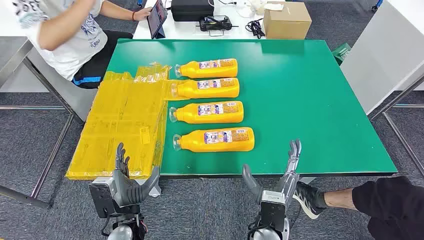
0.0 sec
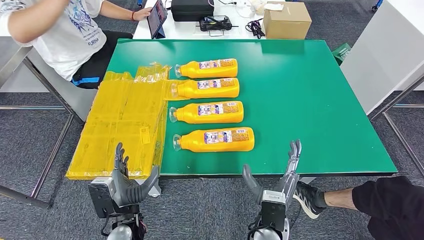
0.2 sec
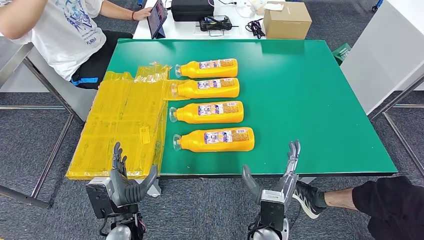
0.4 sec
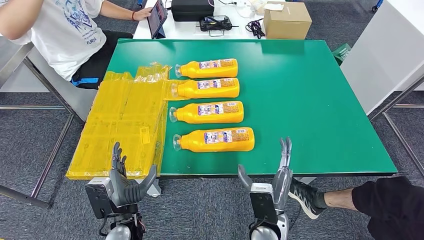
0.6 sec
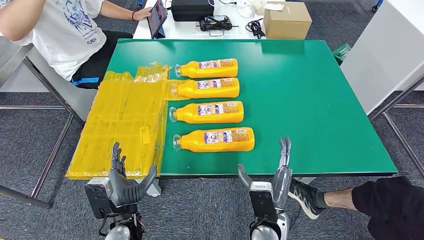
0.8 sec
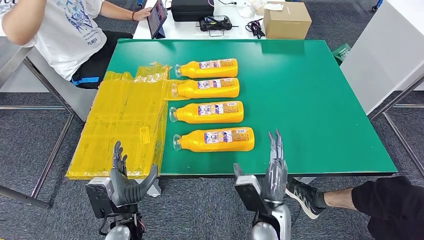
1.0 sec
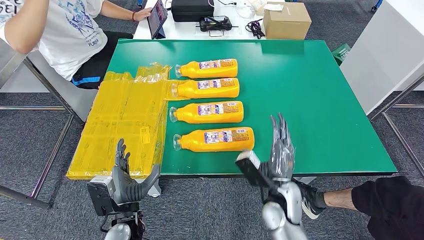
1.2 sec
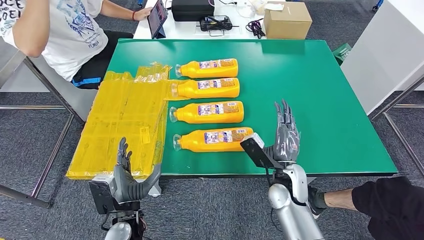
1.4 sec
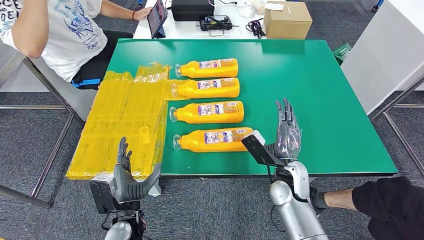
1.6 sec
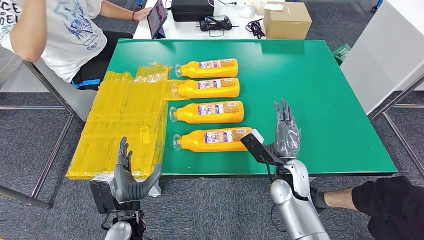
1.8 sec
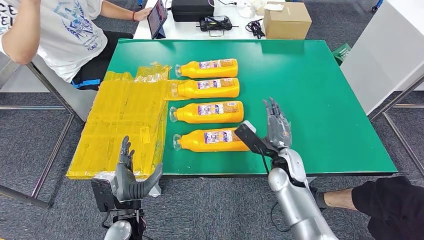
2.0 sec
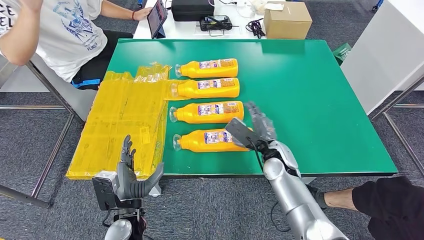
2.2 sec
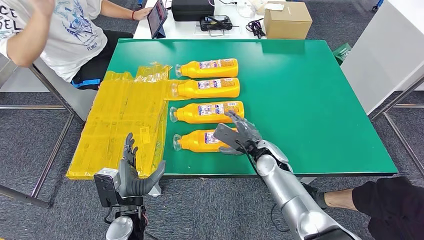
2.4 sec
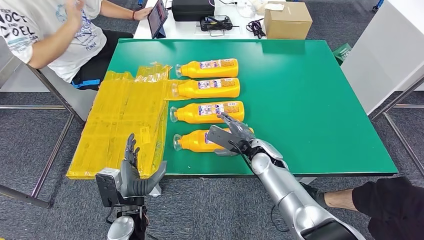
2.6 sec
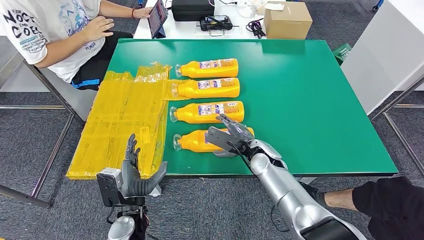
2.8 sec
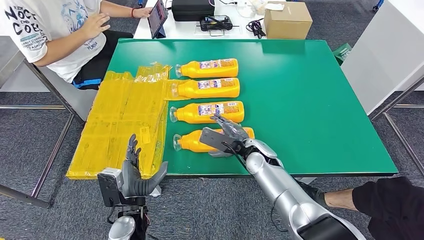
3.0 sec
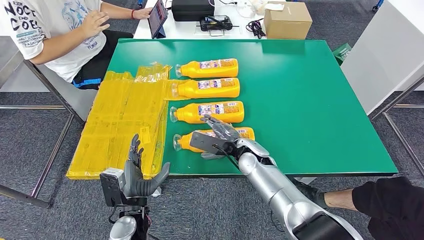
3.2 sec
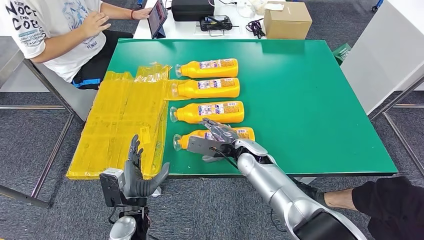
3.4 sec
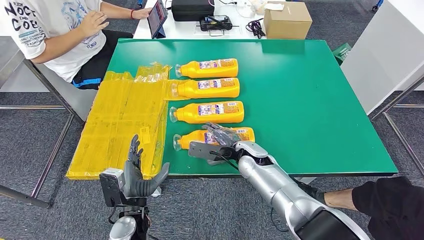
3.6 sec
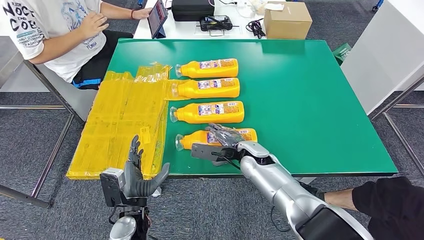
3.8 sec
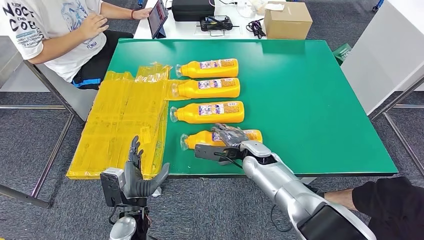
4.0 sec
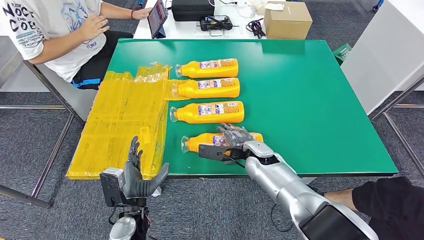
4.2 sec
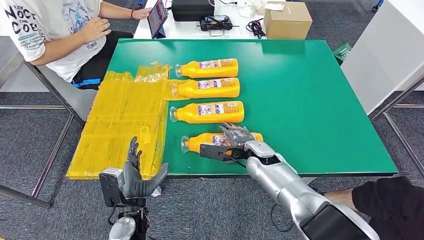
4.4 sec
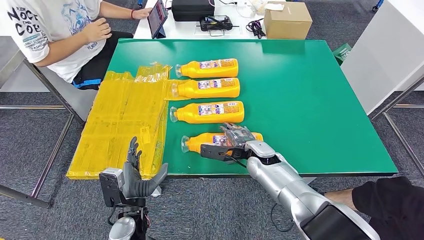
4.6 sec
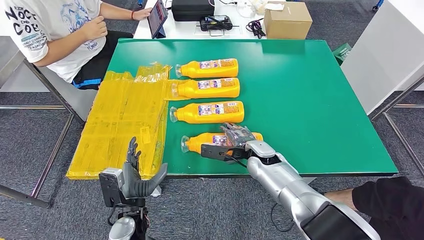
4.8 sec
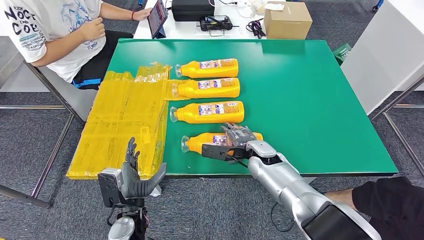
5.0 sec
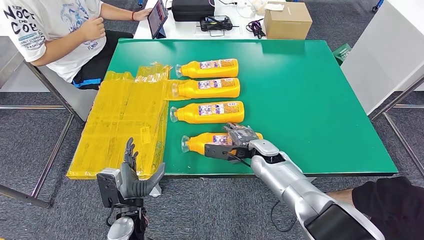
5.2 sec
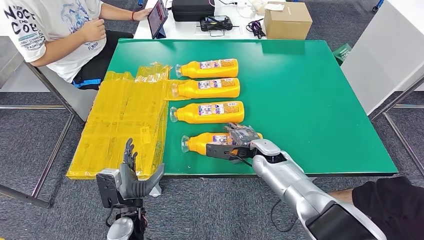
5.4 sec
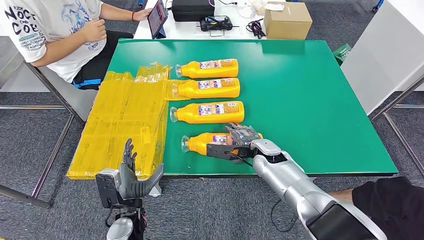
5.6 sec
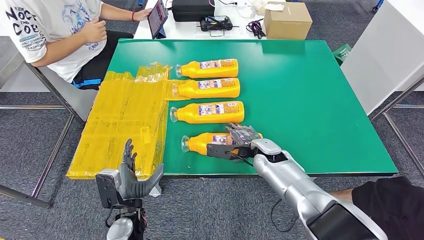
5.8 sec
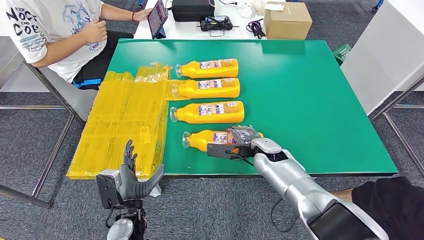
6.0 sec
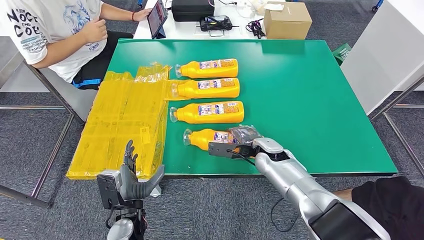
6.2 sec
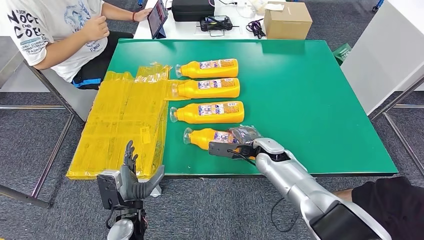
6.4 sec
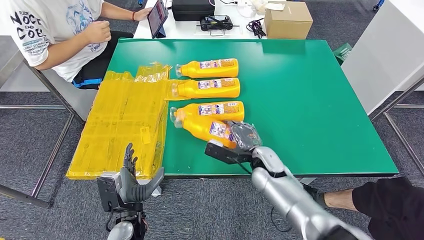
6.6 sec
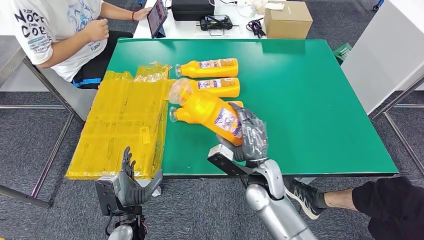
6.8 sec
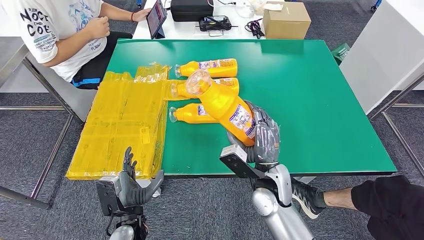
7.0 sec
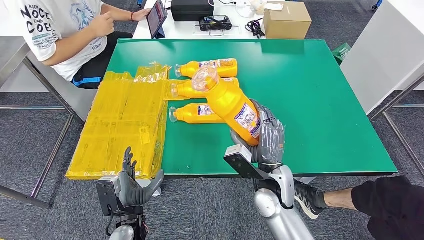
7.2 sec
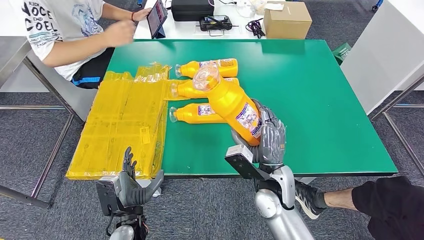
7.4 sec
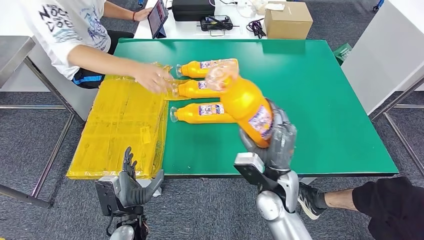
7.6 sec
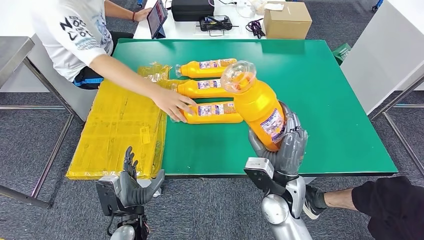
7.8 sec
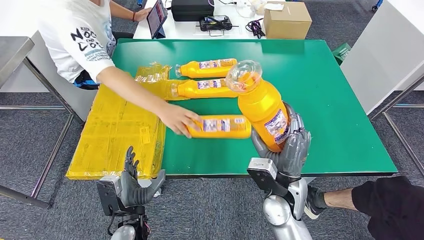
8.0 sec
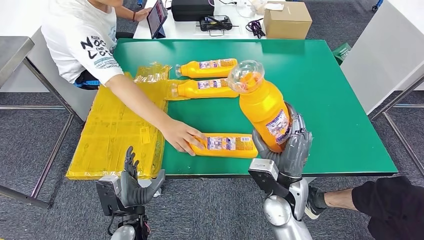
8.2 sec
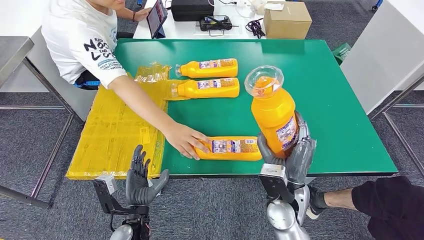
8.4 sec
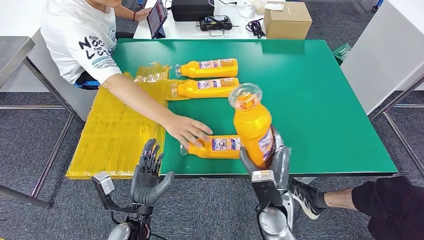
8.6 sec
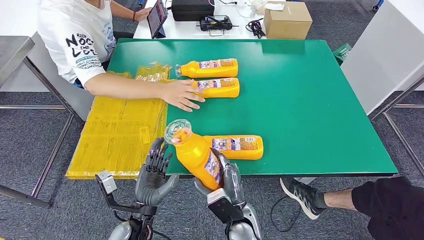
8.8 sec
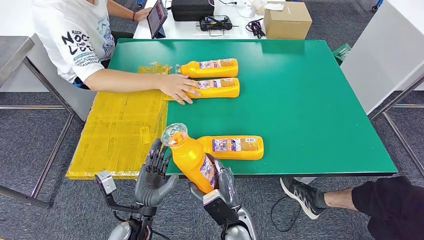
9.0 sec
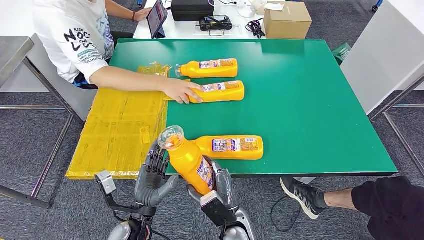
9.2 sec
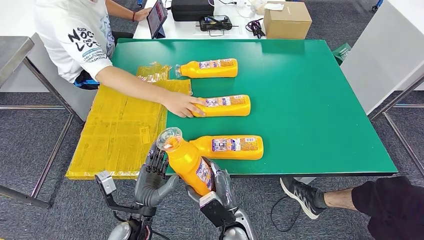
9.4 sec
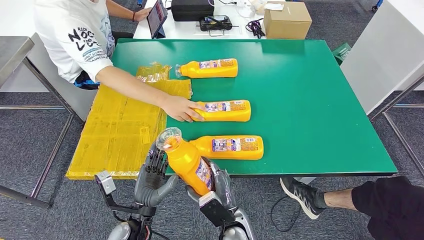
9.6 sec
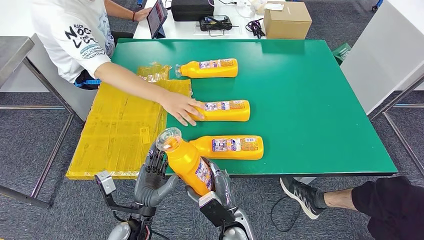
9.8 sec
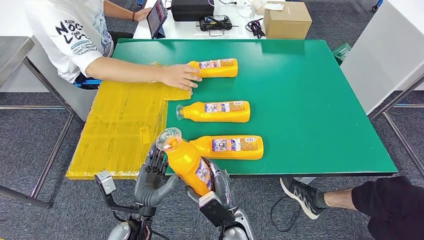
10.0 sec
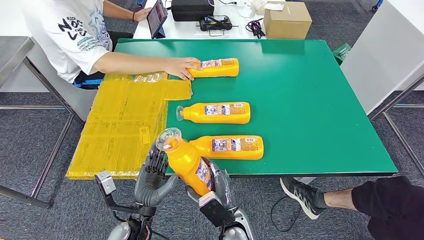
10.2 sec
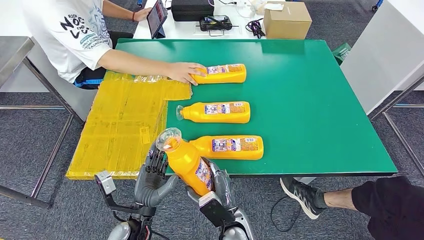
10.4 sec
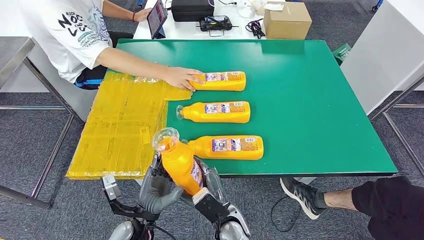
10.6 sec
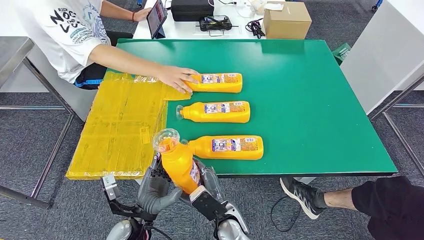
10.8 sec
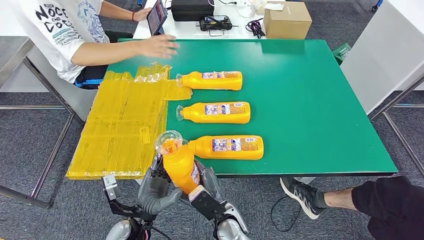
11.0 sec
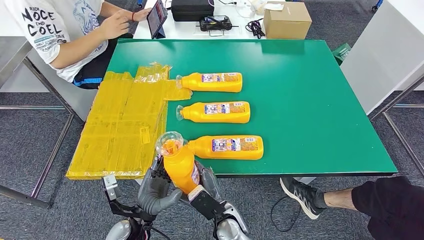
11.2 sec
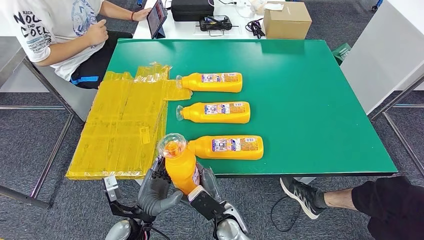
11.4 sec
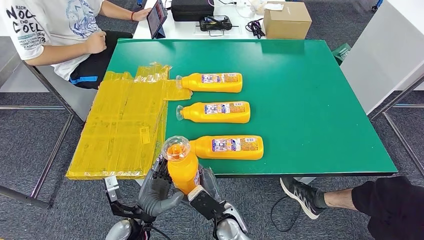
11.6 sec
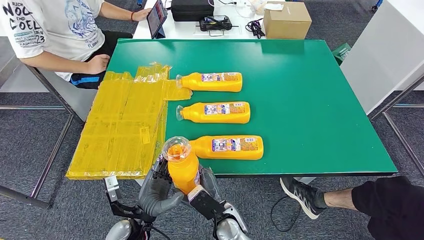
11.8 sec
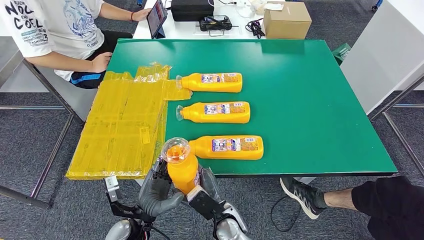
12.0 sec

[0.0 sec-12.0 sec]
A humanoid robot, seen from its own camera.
Step, 0.0 sec to 6.6 sec: Take the fast-moving consumer goods bottle from the table.
1.6 sec to 3.0 sec: The right hand goes about 10 cm forward and to the left.
4.4 sec to 6.0 sec: The hands stay close to where they were, moving slightly.
6.0 sec to 7.6 sec: The right hand heads backward and upward, covering approximately 15 cm.
9.0 sec to 10.4 sec: The two hands keep their place.
10.4 sec to 12.0 sec: There are only small adjustments of the hands.

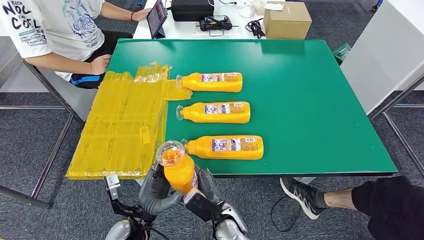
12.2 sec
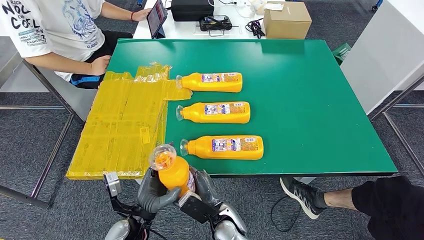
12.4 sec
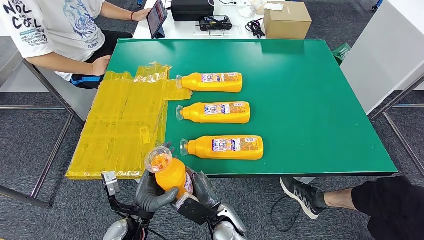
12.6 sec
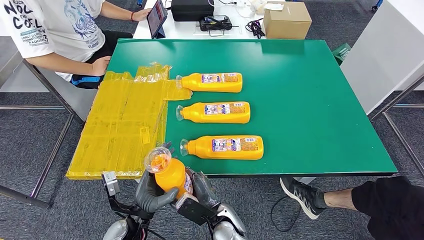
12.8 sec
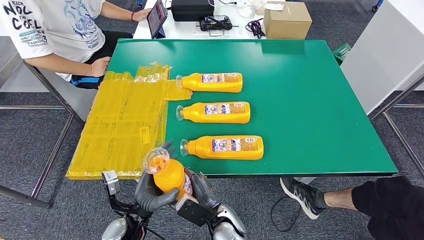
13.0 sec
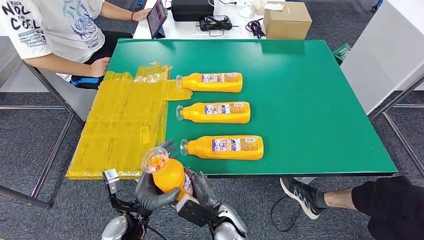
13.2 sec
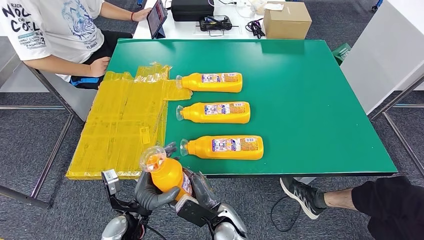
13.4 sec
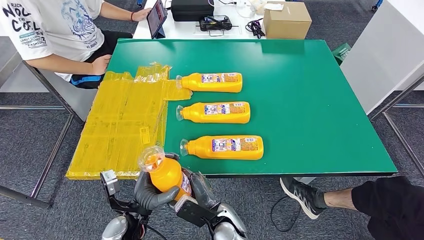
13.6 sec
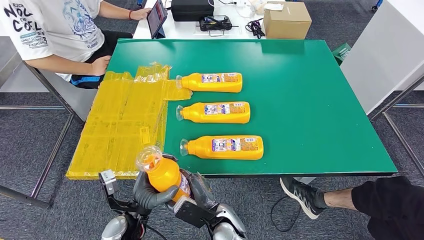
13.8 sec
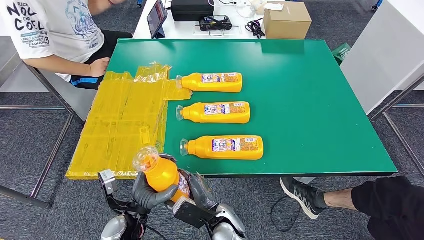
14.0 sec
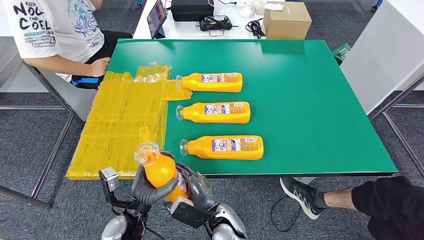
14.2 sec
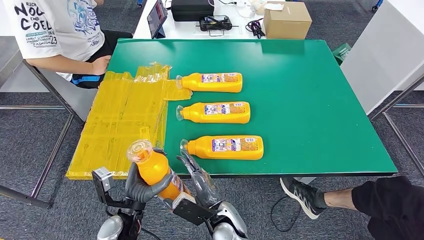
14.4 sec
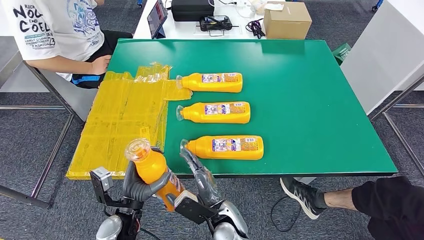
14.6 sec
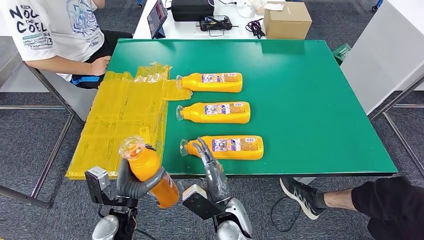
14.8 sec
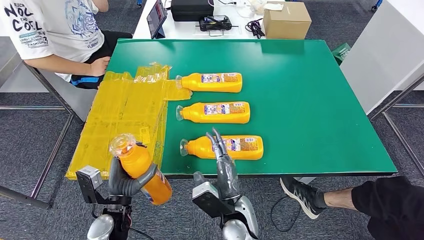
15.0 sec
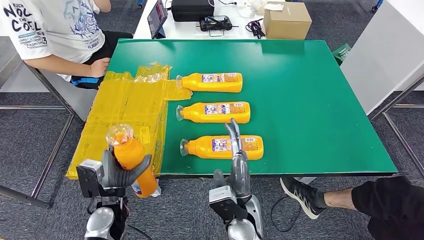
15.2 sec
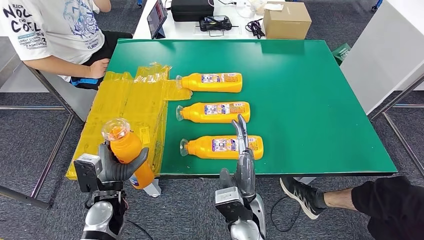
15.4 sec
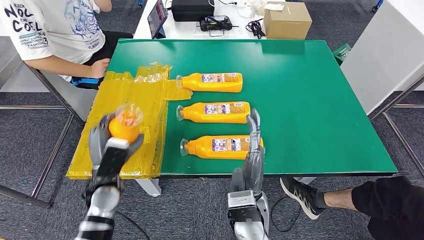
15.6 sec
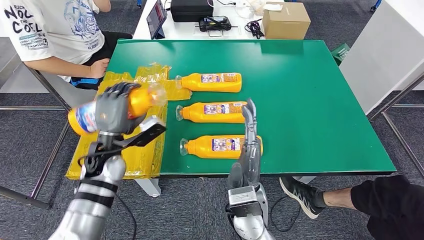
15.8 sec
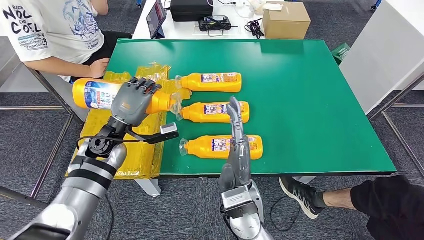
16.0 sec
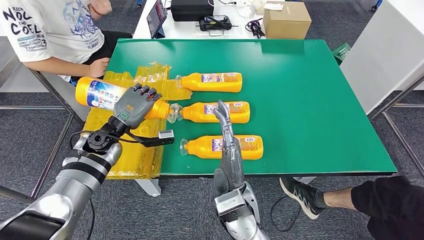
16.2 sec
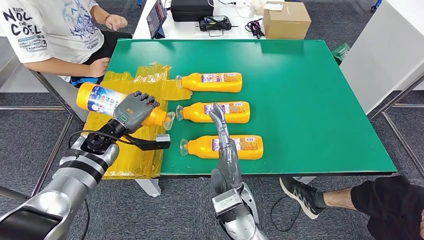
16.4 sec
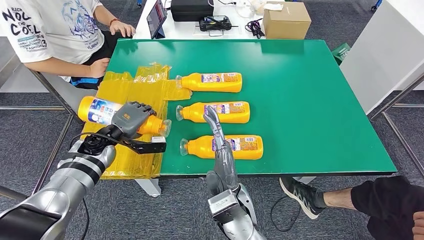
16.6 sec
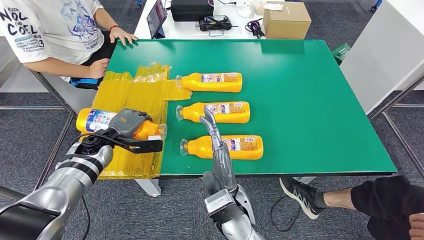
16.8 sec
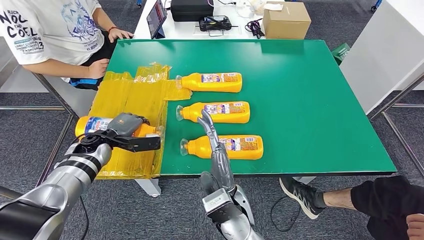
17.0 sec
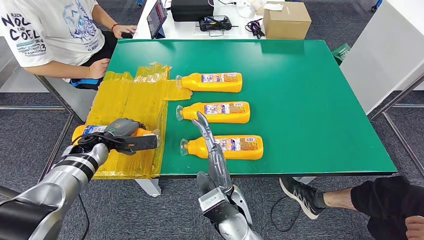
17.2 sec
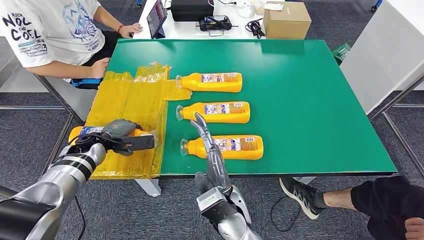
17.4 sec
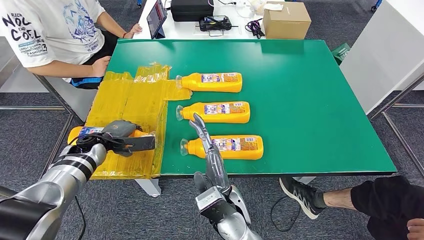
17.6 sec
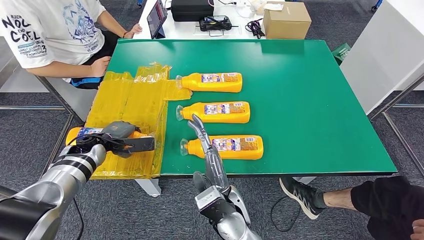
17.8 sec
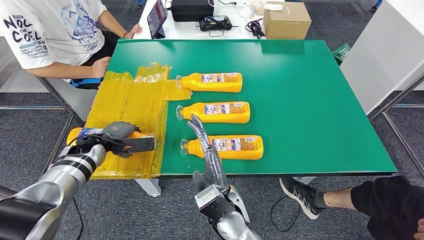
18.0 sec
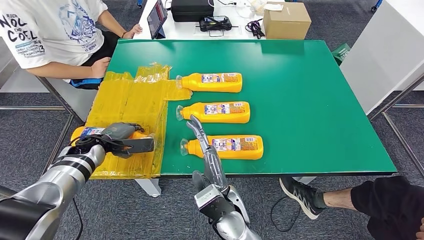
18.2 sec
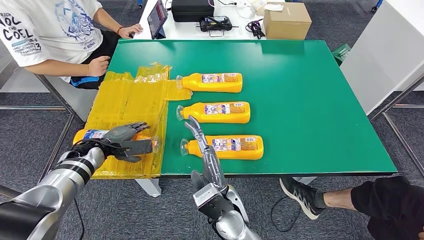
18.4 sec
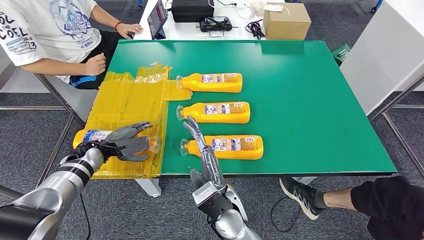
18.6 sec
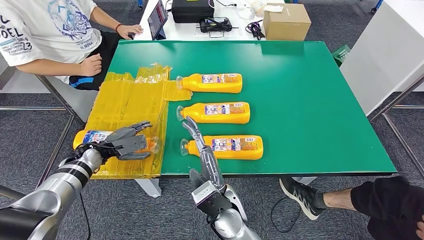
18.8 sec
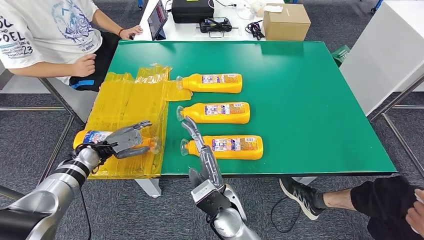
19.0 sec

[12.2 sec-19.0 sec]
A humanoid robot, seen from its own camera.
12.2 sec to 13.6 sec: The hands make only small movements.
13.6 sec to 15.0 sec: The right hand travels upward by about 5 cm.
15.0 sec to 16.2 sec: The left hand travels forward and upward by some 20 cm, while the right hand shifts some 5 cm upward.
16.2 sec to 17.6 sec: The left hand moves to the left and downward, some 10 cm.
